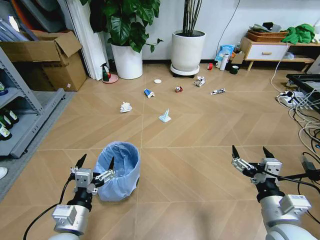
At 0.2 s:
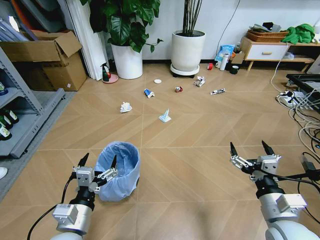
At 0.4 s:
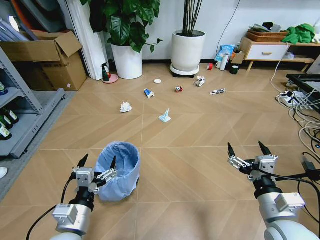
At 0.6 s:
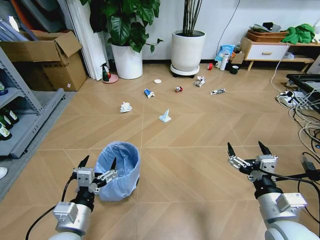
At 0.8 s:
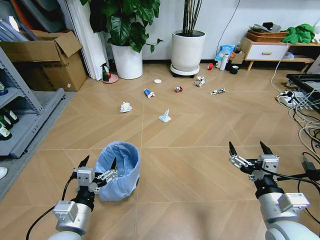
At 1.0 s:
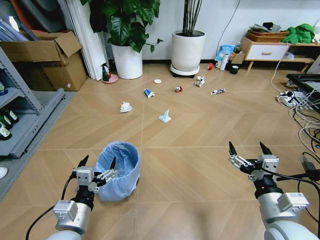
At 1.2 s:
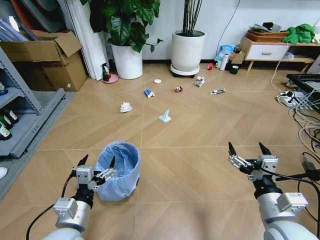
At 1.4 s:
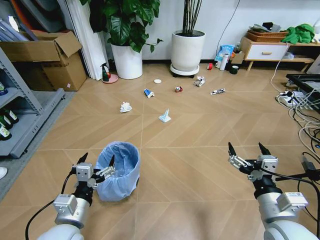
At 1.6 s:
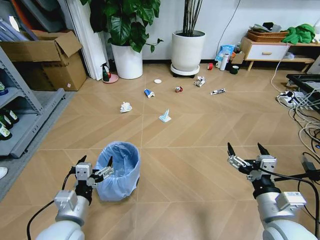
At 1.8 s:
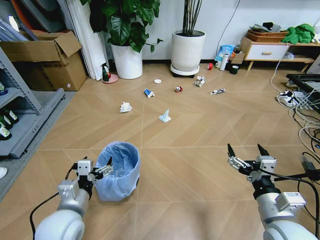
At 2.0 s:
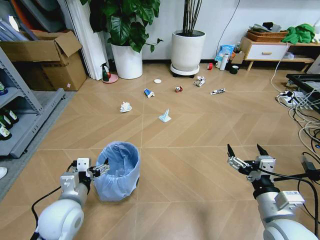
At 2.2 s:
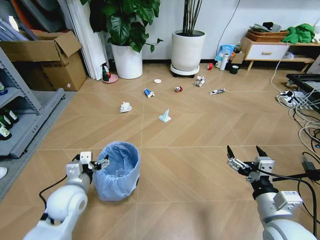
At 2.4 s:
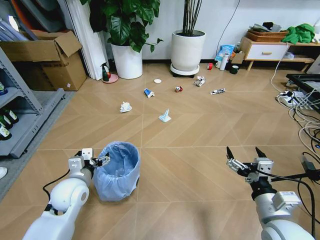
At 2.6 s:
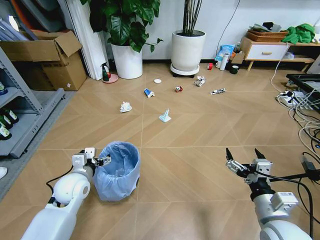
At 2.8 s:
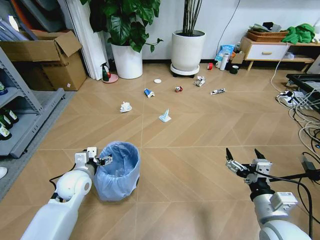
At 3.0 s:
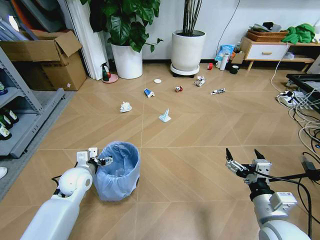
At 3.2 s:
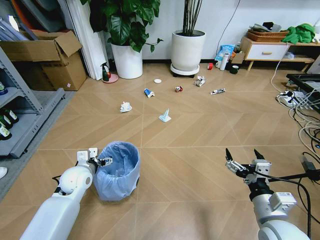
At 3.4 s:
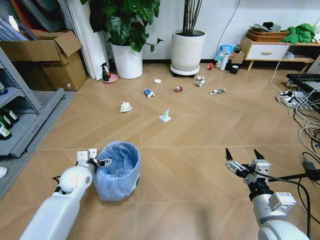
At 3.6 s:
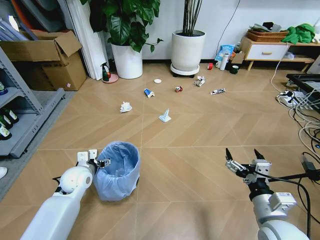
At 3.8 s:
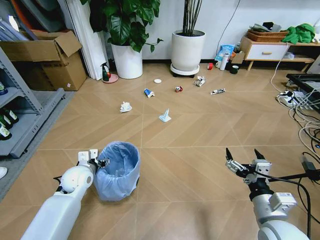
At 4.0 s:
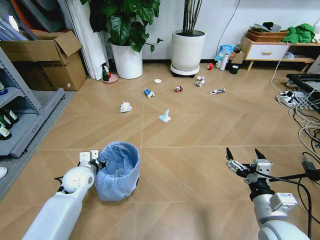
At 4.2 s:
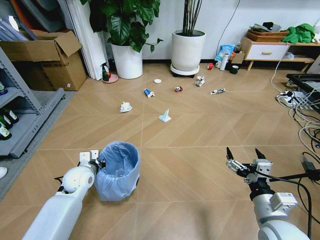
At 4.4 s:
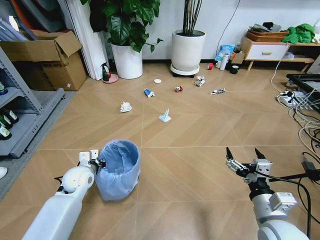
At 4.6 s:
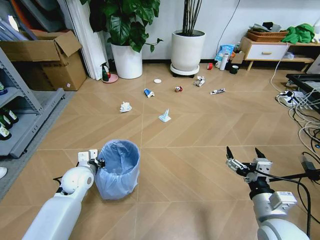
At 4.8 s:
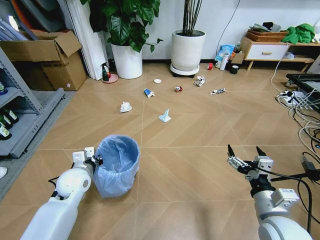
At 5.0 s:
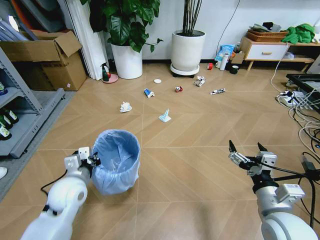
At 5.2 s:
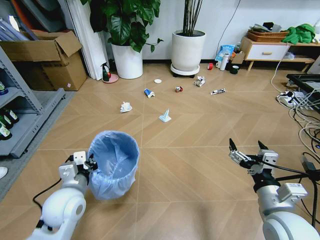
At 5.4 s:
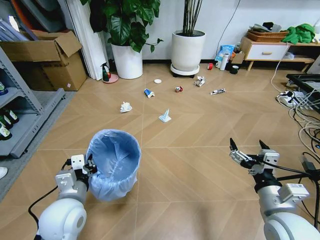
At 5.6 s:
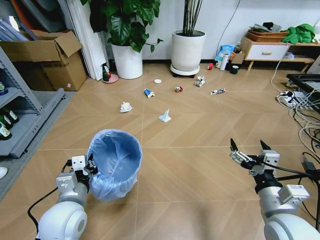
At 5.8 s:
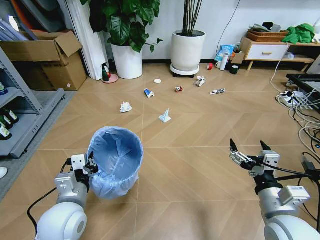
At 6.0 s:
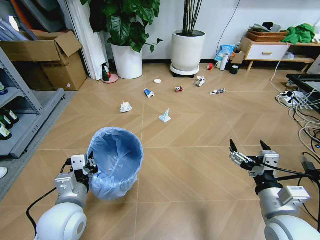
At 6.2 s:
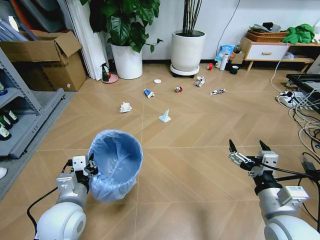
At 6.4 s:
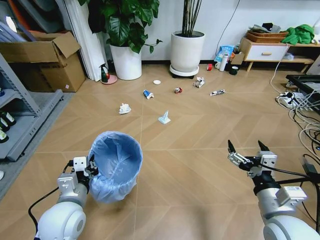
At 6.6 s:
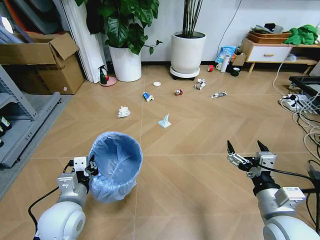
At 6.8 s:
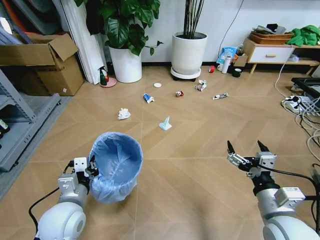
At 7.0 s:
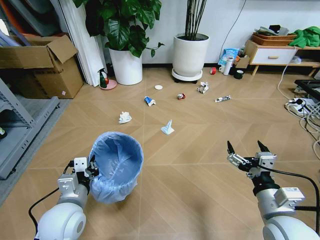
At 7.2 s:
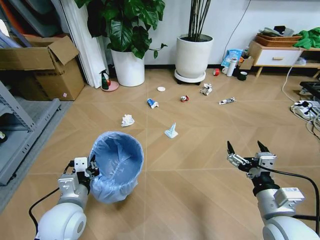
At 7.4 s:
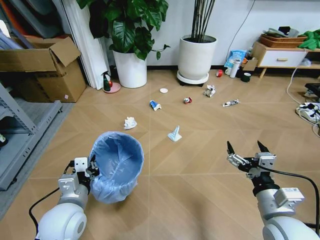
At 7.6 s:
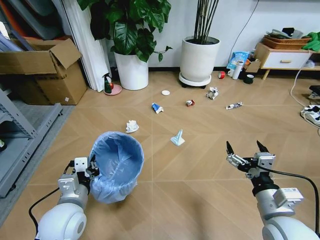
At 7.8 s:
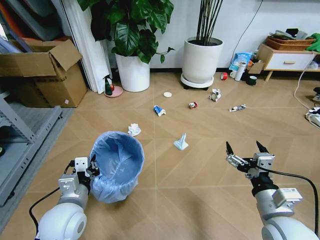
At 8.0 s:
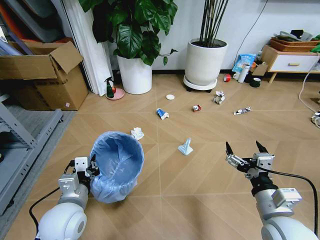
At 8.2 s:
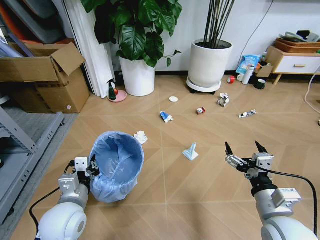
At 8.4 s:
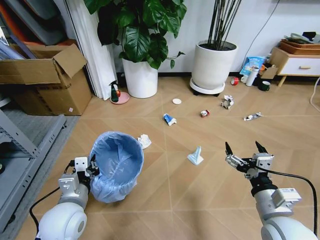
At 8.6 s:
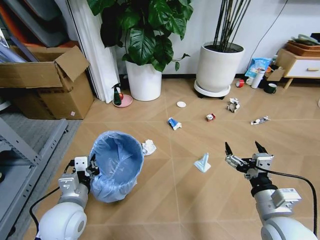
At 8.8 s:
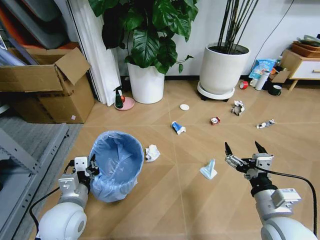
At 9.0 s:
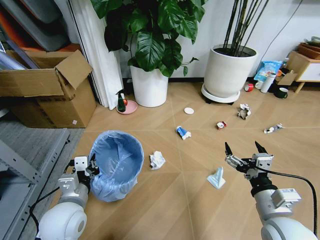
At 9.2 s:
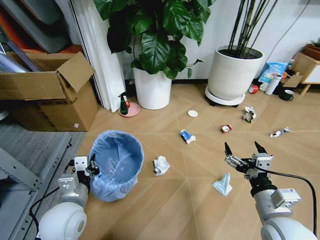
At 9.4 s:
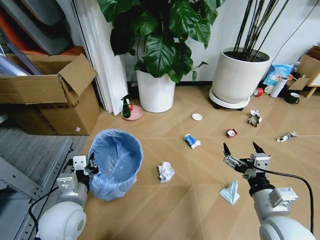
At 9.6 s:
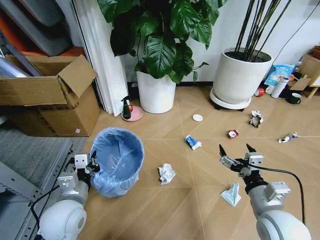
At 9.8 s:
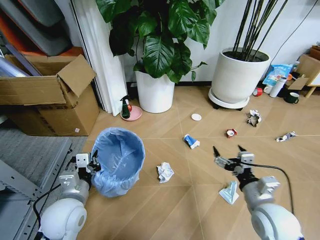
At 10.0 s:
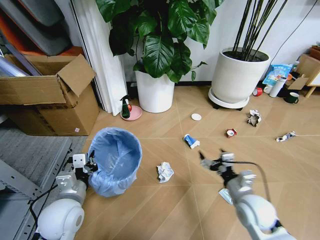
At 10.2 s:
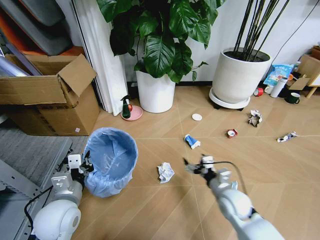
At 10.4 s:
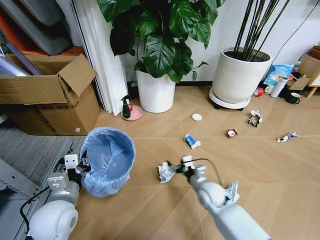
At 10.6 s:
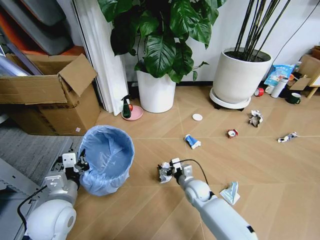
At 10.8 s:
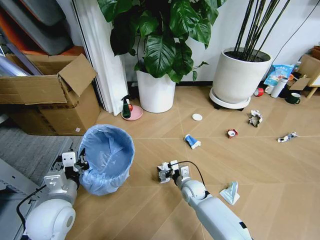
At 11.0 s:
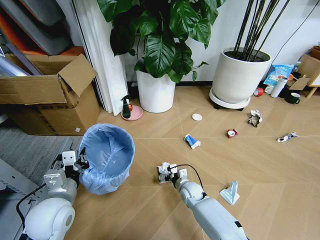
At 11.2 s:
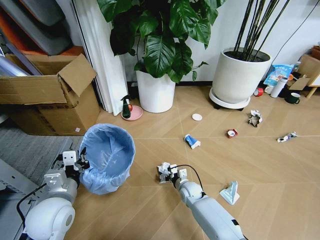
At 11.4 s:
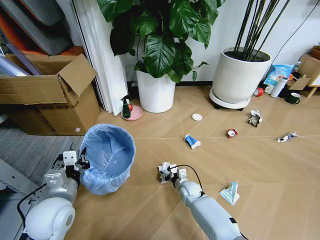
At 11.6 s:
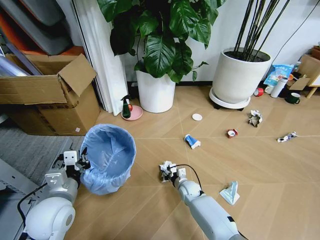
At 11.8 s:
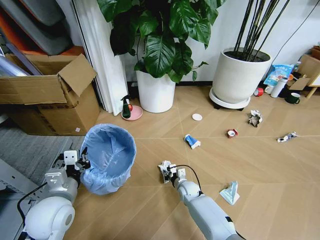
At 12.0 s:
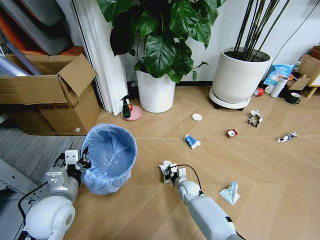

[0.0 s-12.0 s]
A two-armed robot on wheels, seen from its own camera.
Task of the whole recording: Pick up the trash bin and place the garbage on the floor into it.
1.6 to 3.0 s: The left gripper travels forward by approximately 20 cm.
3.0 to 4.4 s: The left gripper closes its fingers.
4.4 to 6.0 s: The left gripper travels backward and upward by about 20 cm.
9.0 to 10.4 s: The right gripper shifts approximately 25 cm downward, forward and to the left.
10.4 to 12.0 s: The right gripper heads downward, forward and to the left, covering about 15 cm, and closes.

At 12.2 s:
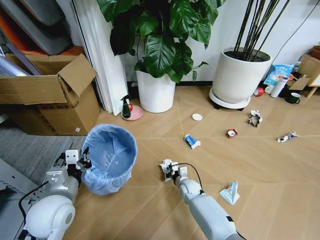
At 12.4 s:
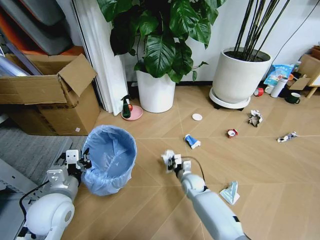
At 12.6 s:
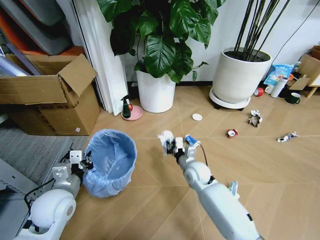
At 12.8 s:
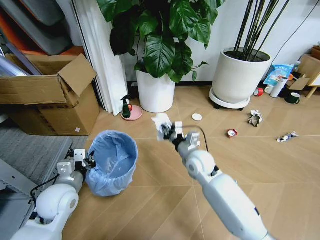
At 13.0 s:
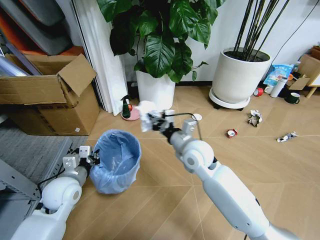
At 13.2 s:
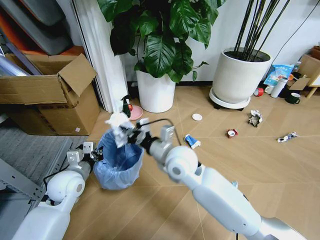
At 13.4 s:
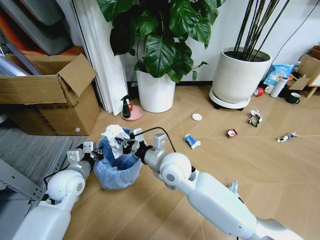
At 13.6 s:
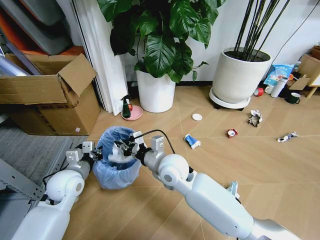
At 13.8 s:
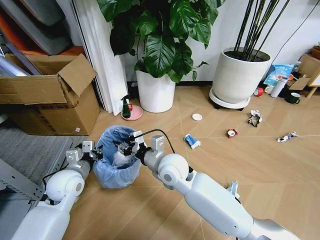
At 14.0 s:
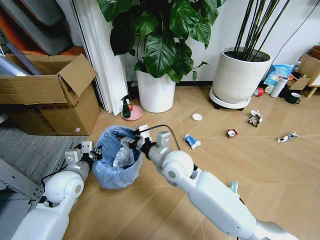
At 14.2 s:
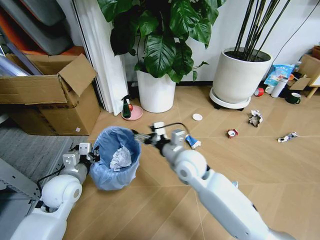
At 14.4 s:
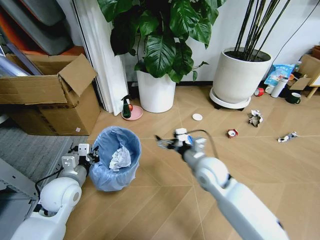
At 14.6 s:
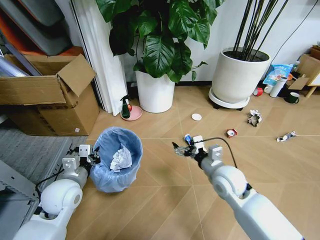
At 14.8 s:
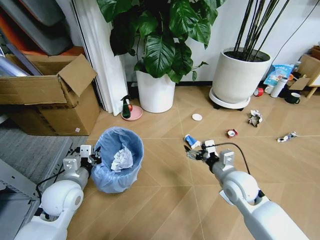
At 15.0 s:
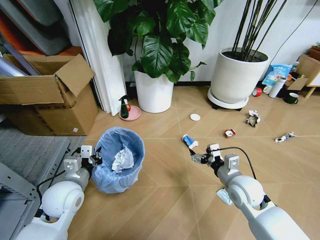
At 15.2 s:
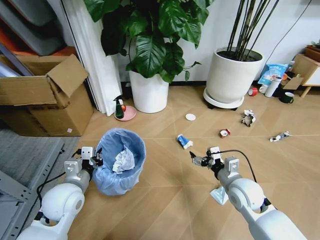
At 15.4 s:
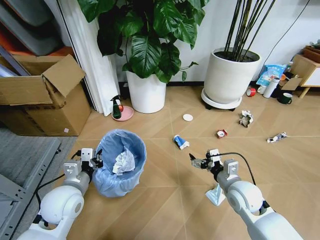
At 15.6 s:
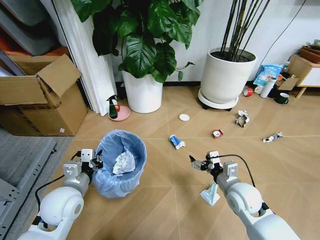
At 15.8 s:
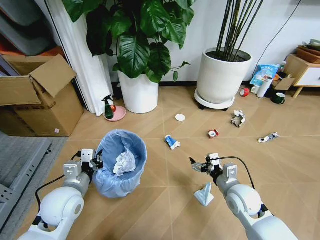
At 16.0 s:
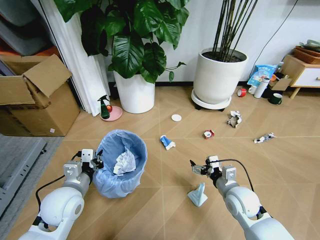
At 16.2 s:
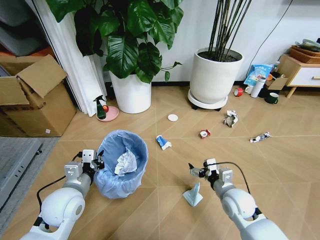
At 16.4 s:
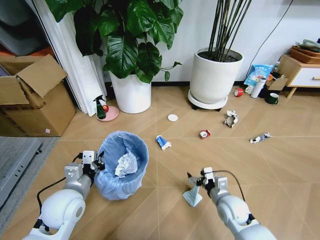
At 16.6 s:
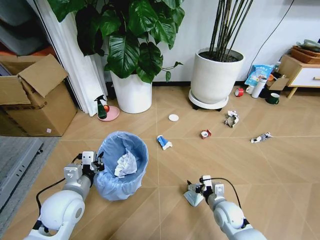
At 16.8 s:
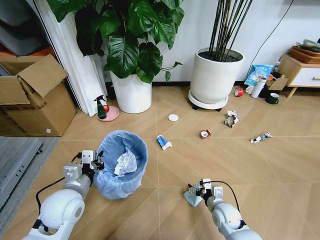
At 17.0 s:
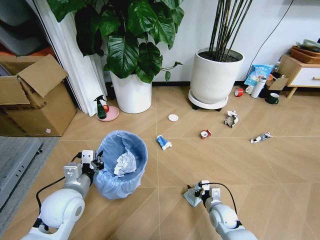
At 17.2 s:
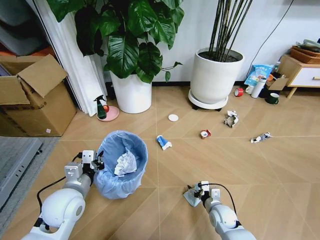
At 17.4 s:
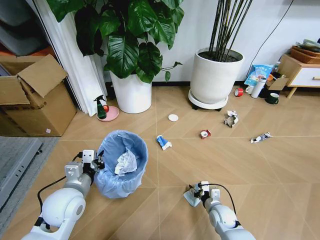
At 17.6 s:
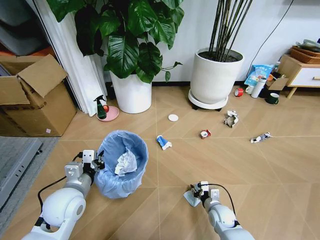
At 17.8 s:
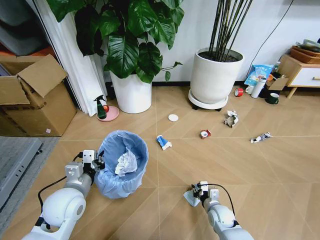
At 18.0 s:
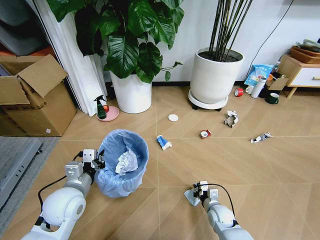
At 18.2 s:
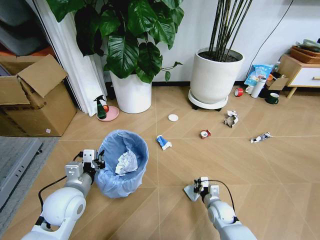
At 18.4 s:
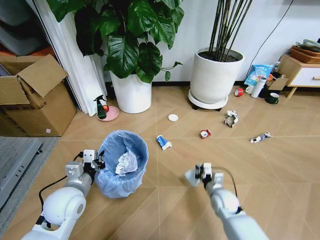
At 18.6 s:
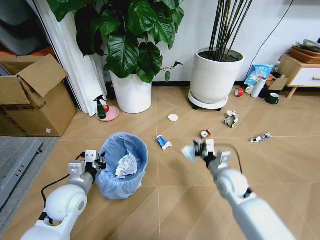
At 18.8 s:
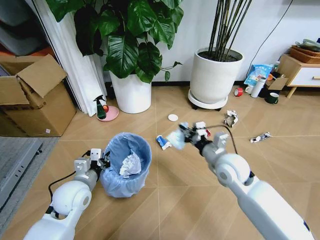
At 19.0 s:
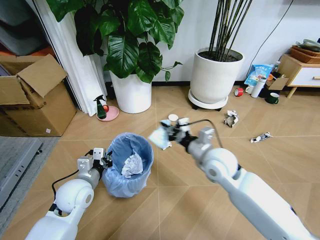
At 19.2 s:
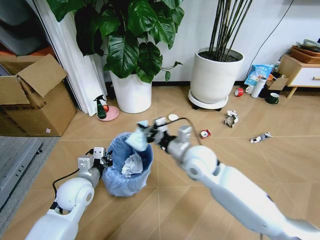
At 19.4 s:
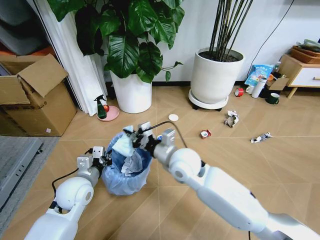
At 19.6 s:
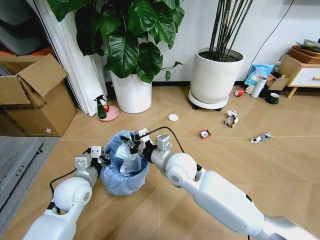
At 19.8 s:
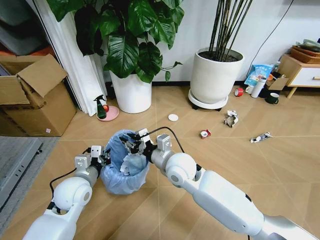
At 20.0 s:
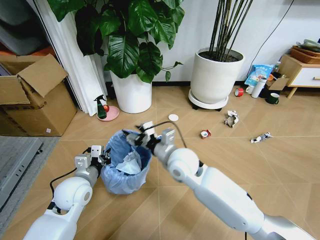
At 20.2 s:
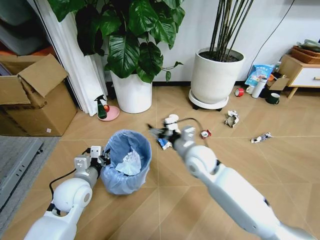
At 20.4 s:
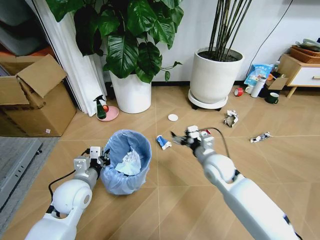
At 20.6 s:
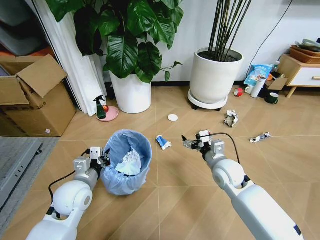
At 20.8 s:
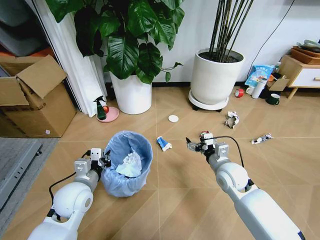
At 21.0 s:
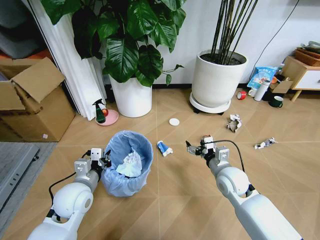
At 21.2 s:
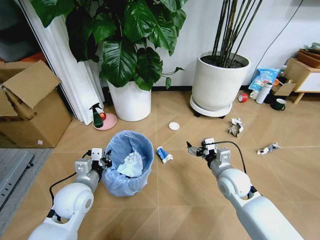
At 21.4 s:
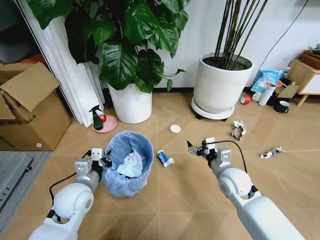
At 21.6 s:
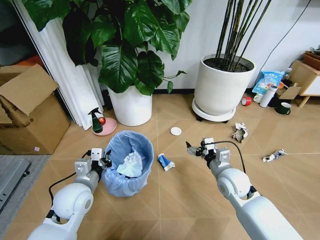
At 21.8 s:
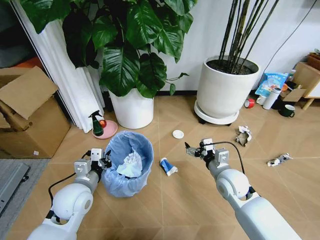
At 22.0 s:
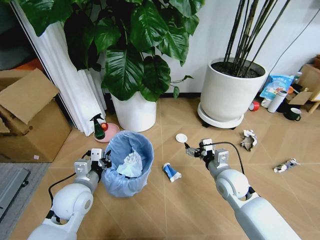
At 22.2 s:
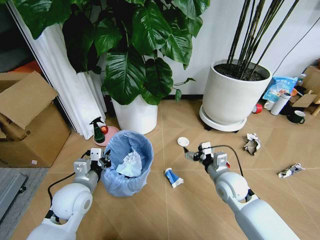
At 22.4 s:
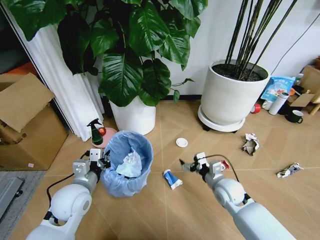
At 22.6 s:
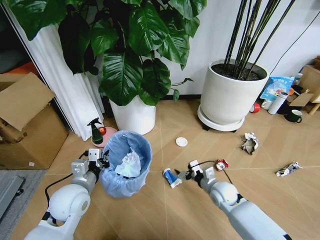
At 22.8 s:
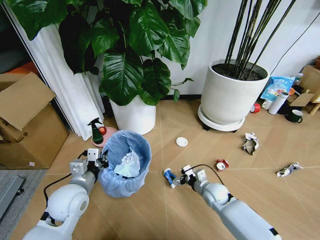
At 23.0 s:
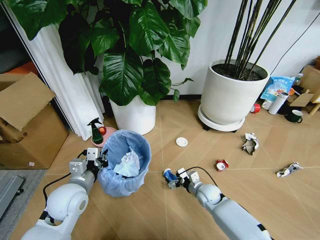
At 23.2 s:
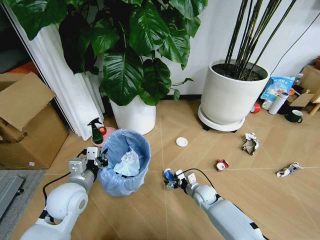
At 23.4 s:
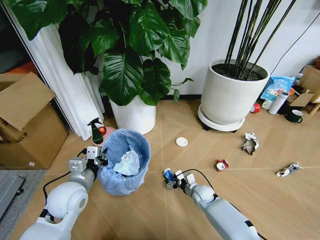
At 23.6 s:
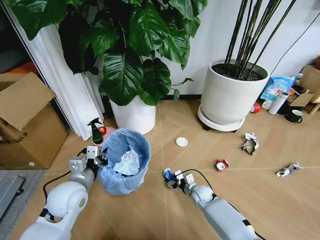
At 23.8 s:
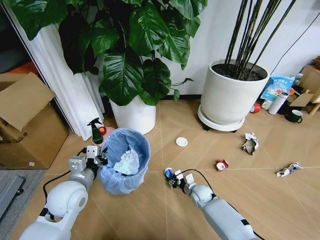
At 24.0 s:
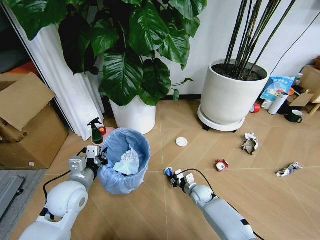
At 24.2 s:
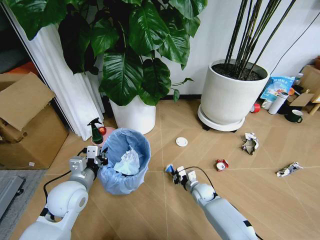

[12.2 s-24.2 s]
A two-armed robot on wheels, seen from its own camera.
Task of the whole recording: Pick up the trash bin and place the garbage on the floor into it.
12.2 to 13.8 s: The right gripper moves upward, about 25 cm, and opens; the left gripper moves forward, about 10 cm.
13.8 to 15.2 s: The left gripper changes place by roughly 5 cm. The right gripper travels to the right by approximately 25 cm, and opens its fingers.
15.2 to 16.6 s: The right gripper travels downward by approximately 15 cm.
16.6 to 18.2 s: The right gripper travels downward by roughly 5 cm, and closes its fingers.
18.2 to 19.8 s: The right gripper goes roughly 30 cm upward and to the left, and opens its fingers.
19.8 to 21.2 s: The right gripper moves to the right, some 20 cm, and opens.
21.2 to 22.6 s: The right gripper shifts about 10 cm downward.
22.6 to 24.2 s: The right gripper travels downward by roughly 10 cm, and closes its fingers.
